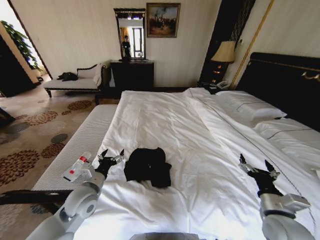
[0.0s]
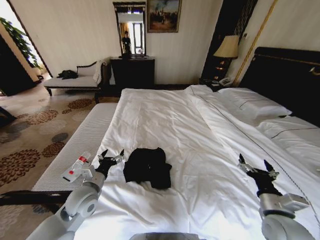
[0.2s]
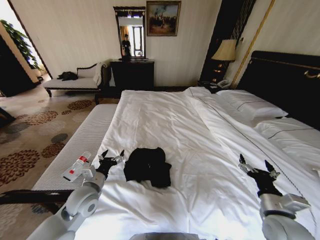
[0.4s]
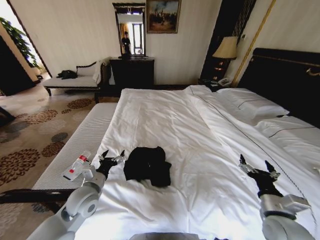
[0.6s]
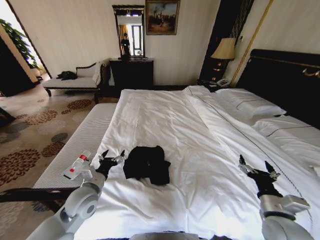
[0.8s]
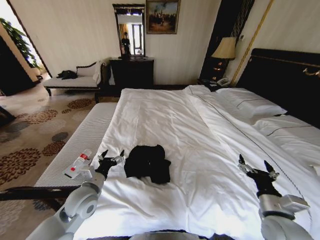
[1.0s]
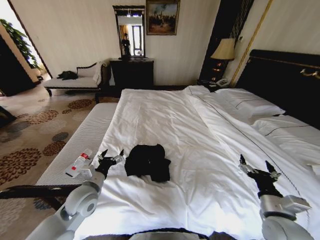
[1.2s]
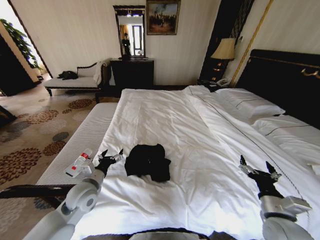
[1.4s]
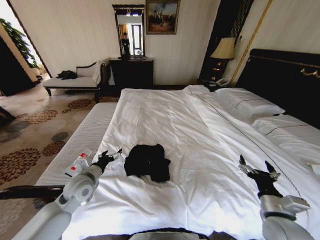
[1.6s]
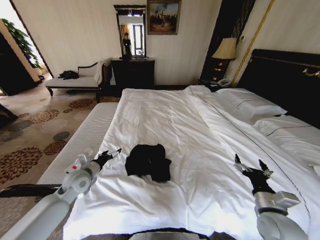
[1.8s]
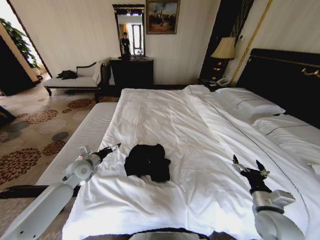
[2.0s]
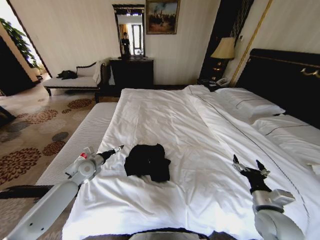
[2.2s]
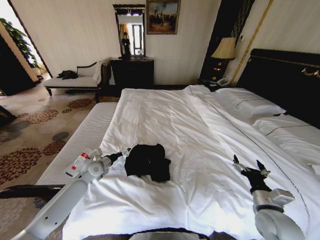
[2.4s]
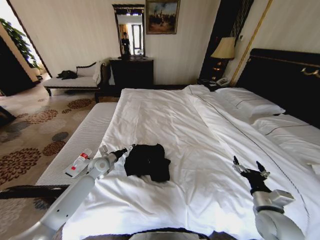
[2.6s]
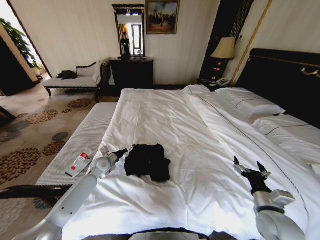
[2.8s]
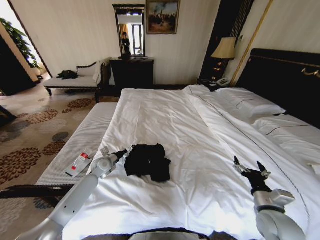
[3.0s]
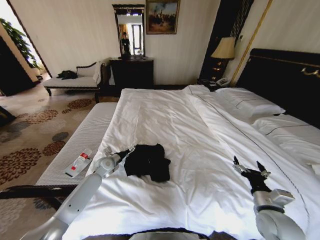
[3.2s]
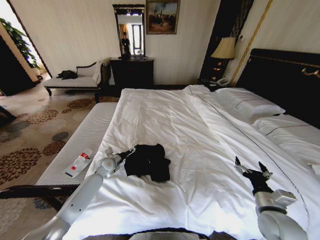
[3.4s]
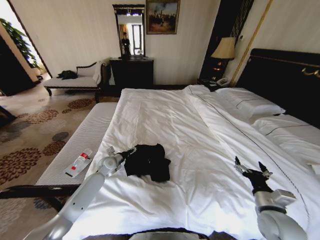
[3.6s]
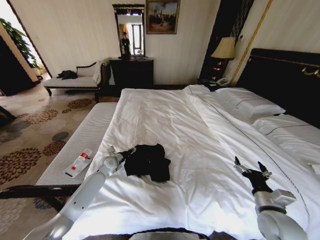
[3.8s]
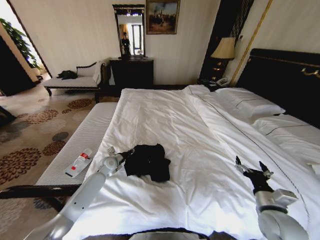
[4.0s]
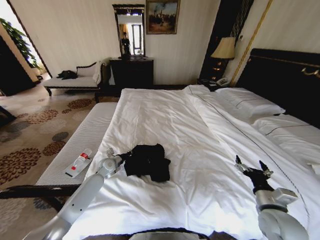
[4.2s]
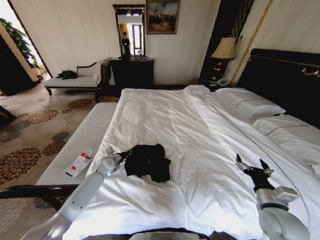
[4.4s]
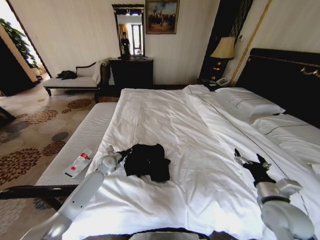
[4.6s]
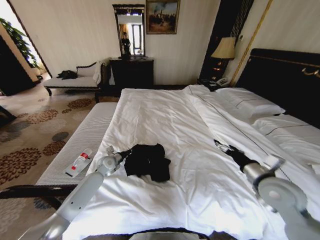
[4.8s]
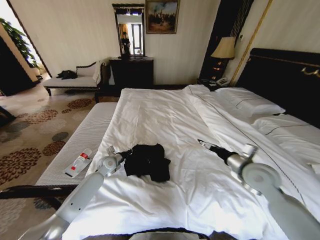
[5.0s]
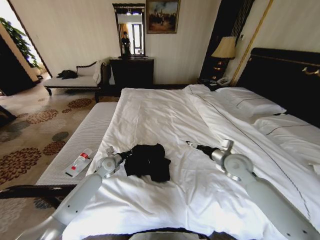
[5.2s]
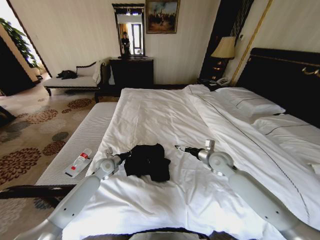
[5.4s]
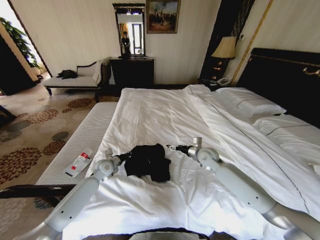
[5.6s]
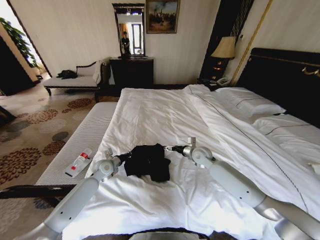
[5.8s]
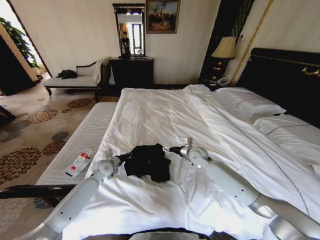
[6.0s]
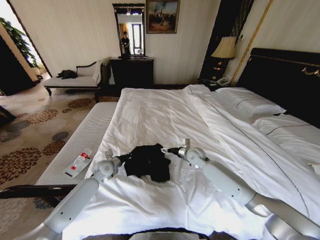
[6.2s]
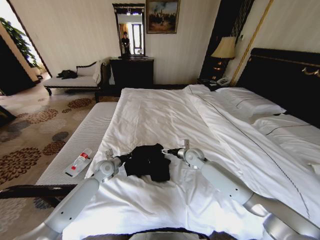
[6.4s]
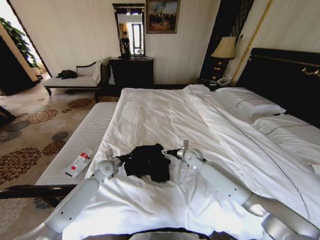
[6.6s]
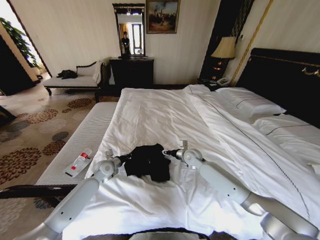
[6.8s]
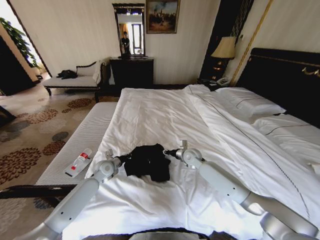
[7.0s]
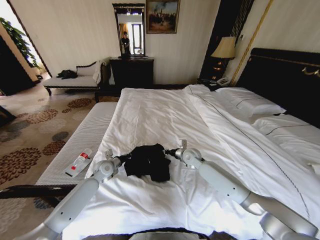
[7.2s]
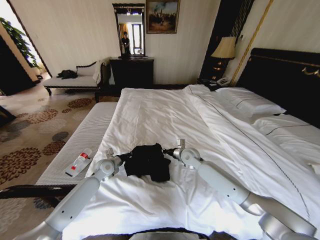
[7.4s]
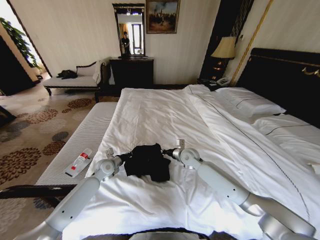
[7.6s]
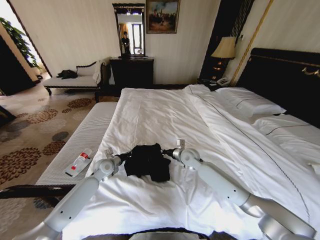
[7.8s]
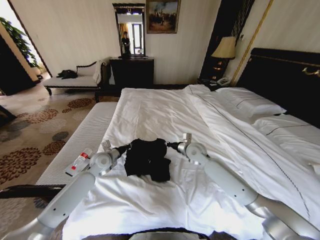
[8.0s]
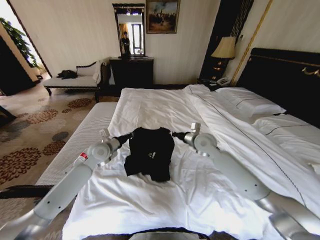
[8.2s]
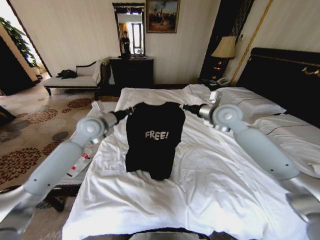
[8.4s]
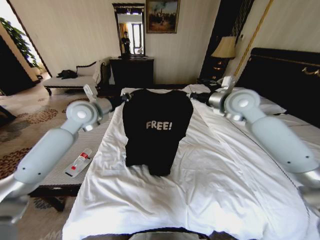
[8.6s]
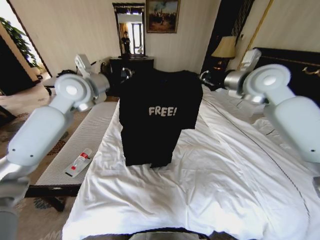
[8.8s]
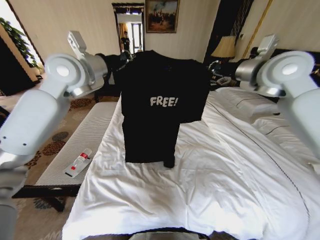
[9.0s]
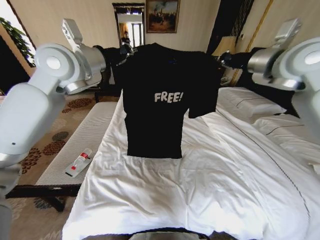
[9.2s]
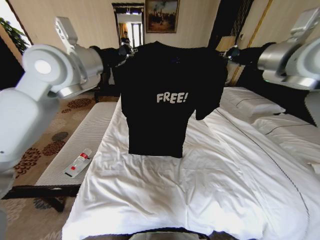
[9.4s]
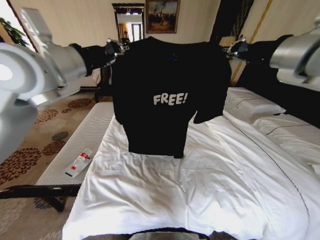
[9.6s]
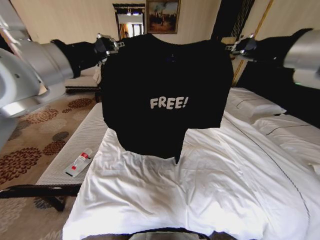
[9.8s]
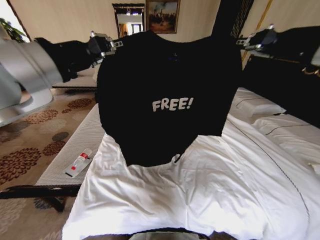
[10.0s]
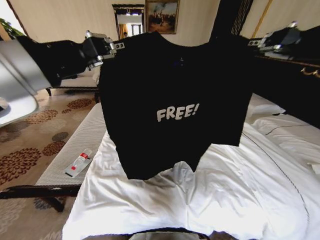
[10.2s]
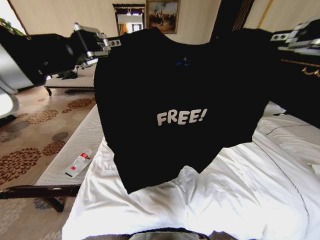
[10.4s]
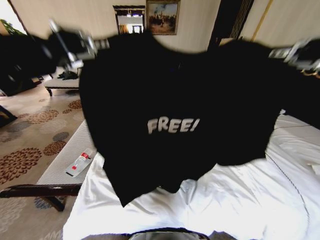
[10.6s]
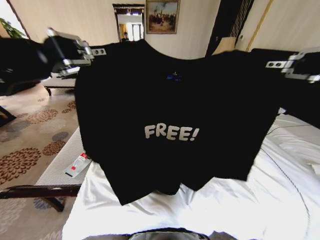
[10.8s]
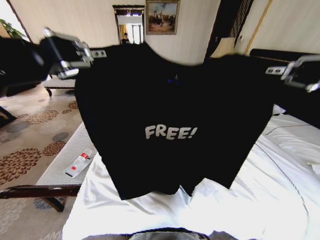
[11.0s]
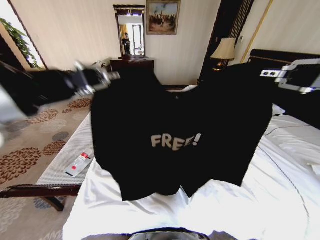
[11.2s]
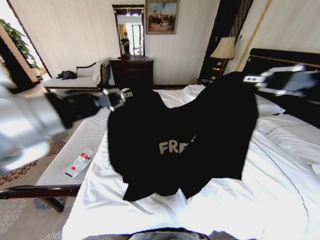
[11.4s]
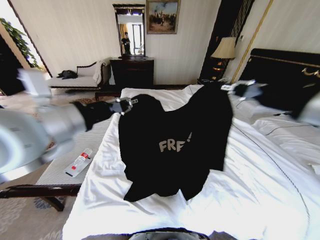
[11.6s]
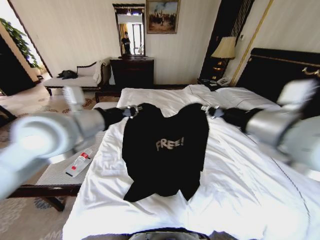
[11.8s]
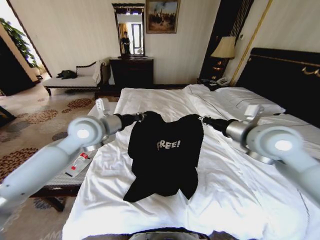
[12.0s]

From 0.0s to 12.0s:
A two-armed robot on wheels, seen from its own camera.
Task of the whole recording: Fold the clothes on the bed.
From 0.0s to 1.6s: The left gripper moves some 5 cm.
From 1.6s to 3.0s: The left gripper is displaced forward and downward by some 15 cm.
From 3.0s to 4.4s: The left gripper closes its fingers.
From 4.4s to 6.0s: The right gripper goes roughly 35 cm forward and to the left.
From 6.0s to 7.6s: The right gripper closes its fingers.
From 7.6s to 9.0s: Both grippers travel together upward, some 40 cm.
From 9.0s to 10.4s: The two grippers go roughly 25 cm backward.
From 10.4s to 12.0s: Both grippers travel together downward and forward, roughly 25 cm.

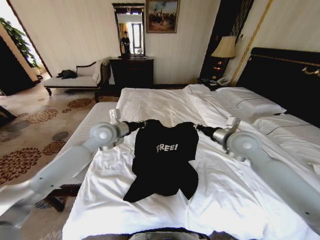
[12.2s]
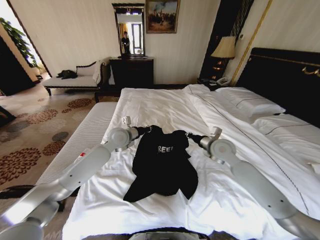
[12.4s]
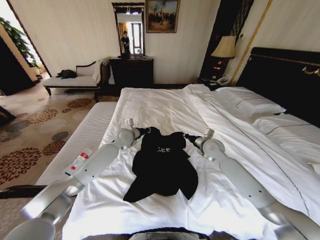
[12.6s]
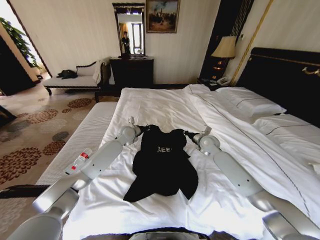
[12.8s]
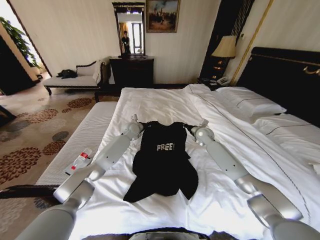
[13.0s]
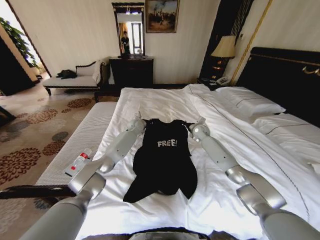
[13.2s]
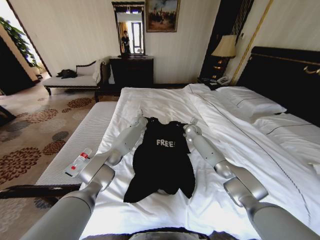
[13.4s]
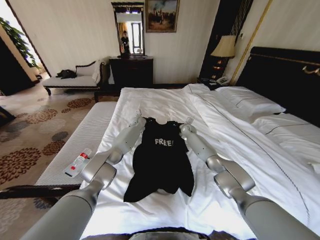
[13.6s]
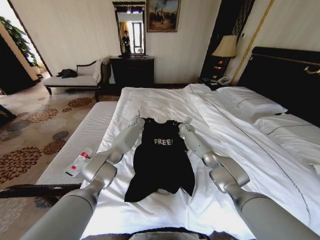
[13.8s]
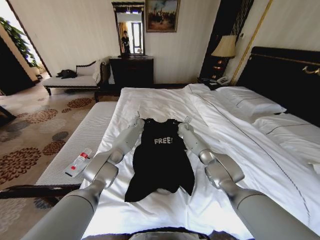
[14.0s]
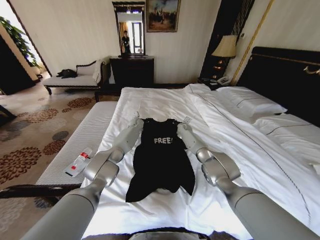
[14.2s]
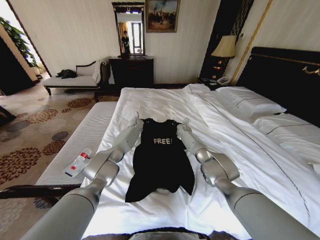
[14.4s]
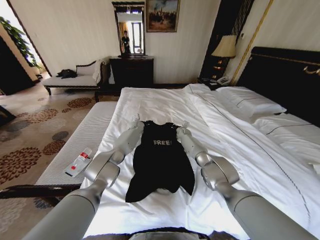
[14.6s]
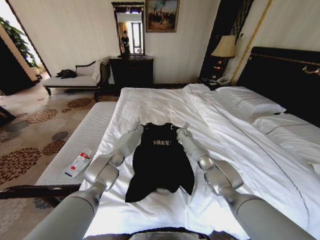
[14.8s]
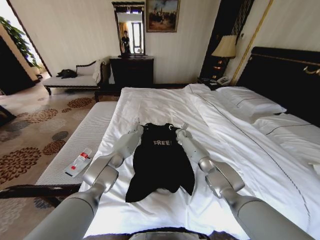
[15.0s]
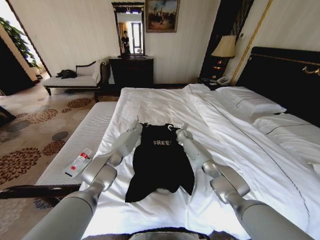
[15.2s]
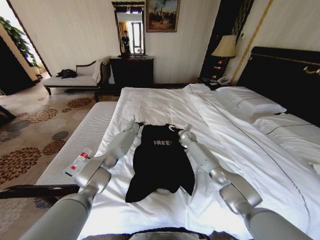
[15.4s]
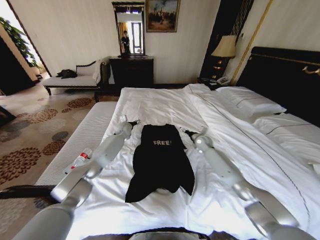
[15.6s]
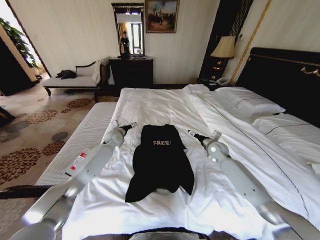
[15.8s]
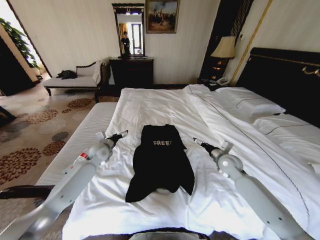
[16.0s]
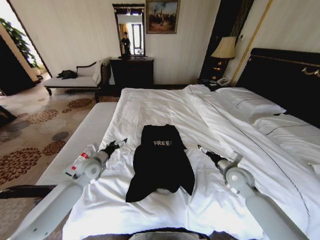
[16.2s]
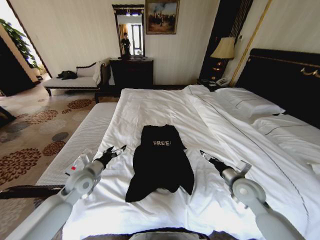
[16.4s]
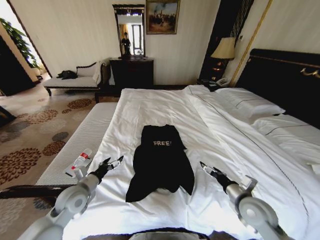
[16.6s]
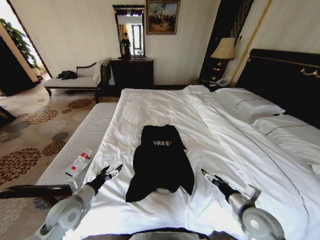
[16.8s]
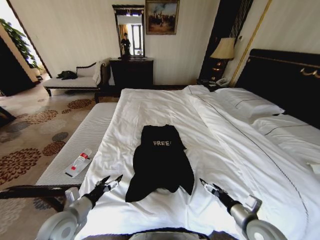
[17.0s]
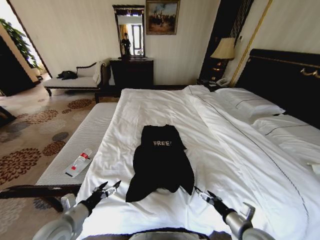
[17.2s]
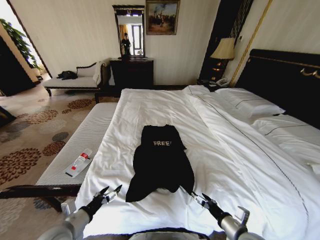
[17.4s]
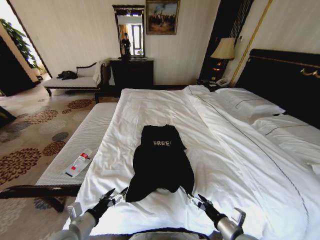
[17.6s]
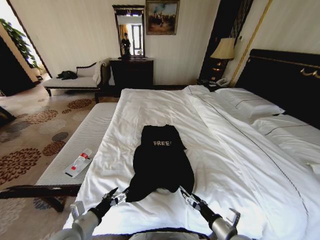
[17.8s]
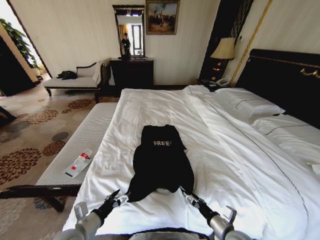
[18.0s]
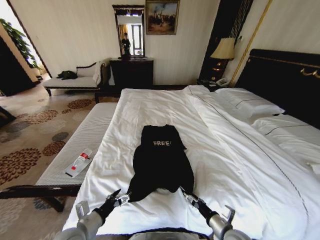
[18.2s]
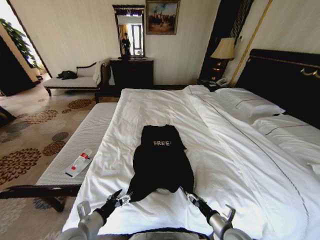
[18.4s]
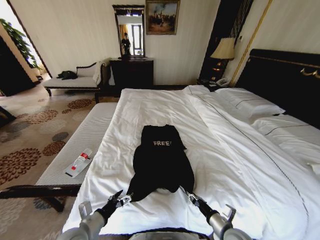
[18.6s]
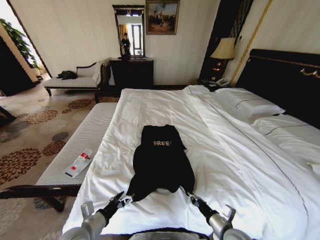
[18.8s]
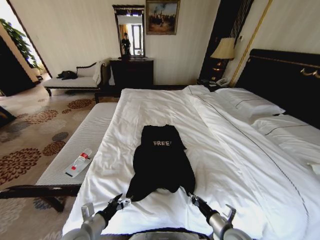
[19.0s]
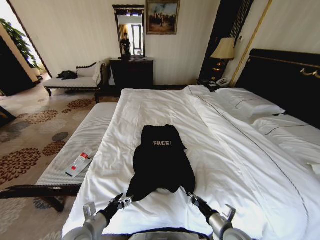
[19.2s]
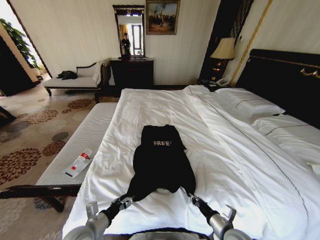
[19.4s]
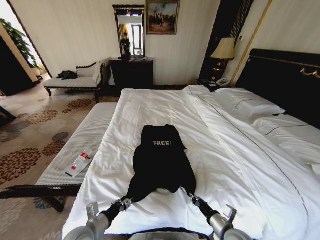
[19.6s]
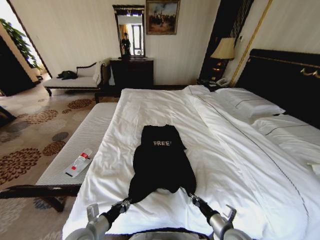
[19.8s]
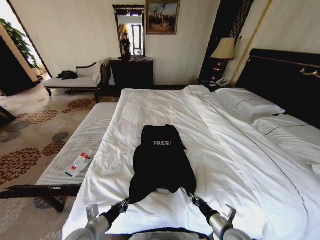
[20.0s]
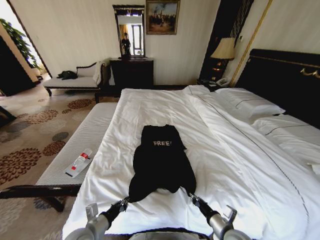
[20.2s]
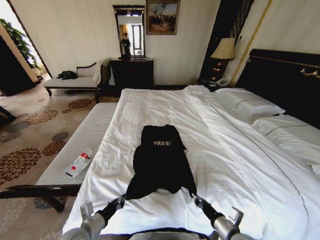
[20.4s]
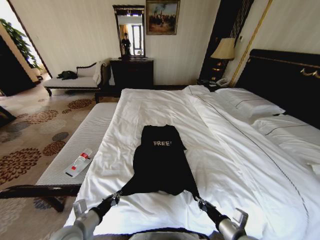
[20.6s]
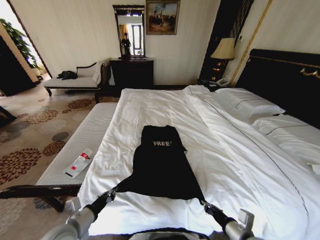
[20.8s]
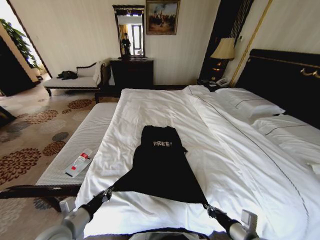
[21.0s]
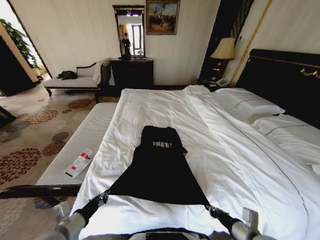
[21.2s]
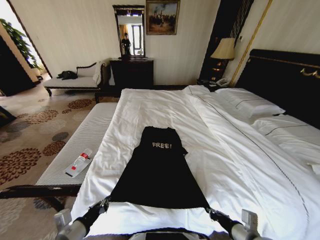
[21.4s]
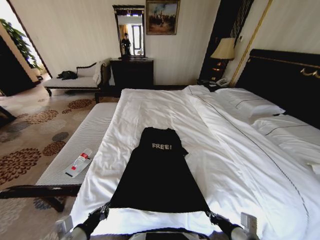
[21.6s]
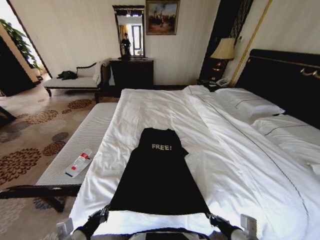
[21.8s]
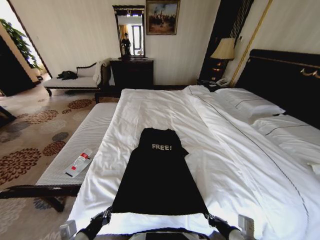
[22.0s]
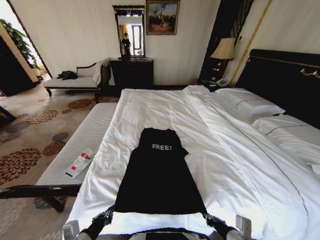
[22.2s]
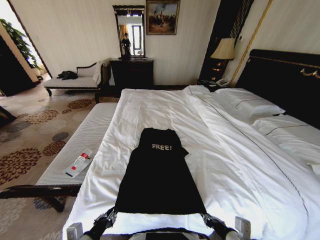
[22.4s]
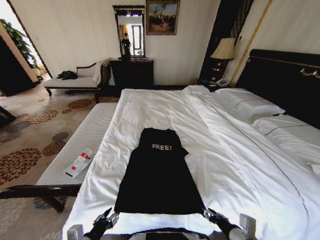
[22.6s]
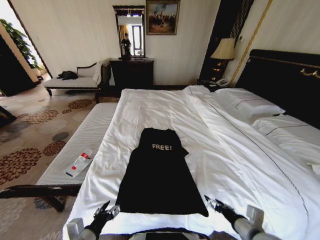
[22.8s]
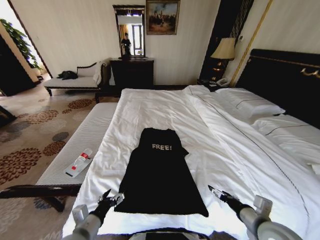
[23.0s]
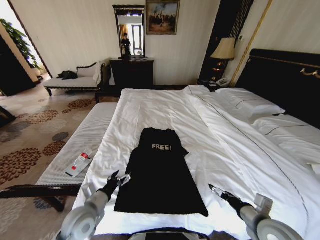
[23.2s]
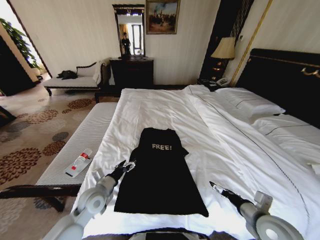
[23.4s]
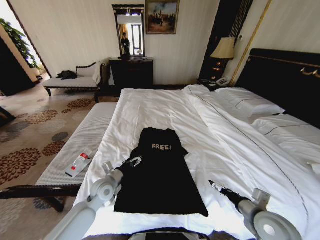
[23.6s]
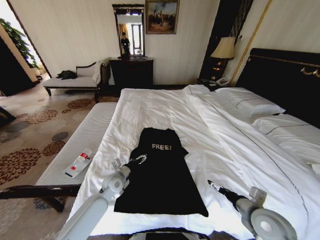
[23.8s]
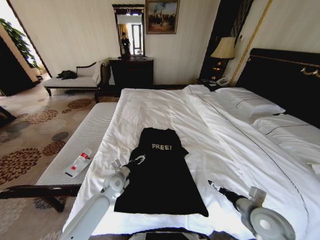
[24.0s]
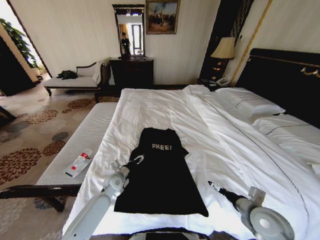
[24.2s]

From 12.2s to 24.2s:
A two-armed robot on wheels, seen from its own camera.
Task of the whole recording: Fold the clothes on the bed.
From 12.2s to 13.8s: Both grippers move forward and downward, approximately 30 cm.
From 13.8s to 15.2s: The left gripper opens its fingers. The right gripper opens.
From 15.2s to 16.6s: The right gripper moves backward, approximately 40 cm, and opens its fingers. The left gripper heads backward and to the left, covering about 50 cm, and opens.
From 16.6s to 18.2s: The left gripper shifts roughly 10 cm backward. The right gripper shifts roughly 15 cm downward, backward and to the left.
From 18.2s to 19.8s: The right gripper closes up, while the left gripper closes.
From 19.8s to 21.2s: The left gripper travels upward and to the left by some 10 cm. The right gripper heads upward, covering some 10 cm.
From 21.2s to 22.6s: The left gripper moves backward, roughly 5 cm, and opens its fingers. Meanwhile the right gripper opens its fingers.
From 22.6s to 24.2s: The left gripper is displaced forward by about 30 cm, and opens up. Meanwhile the right gripper travels forward and to the right by about 10 cm, and opens.
